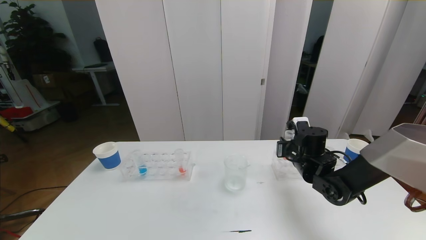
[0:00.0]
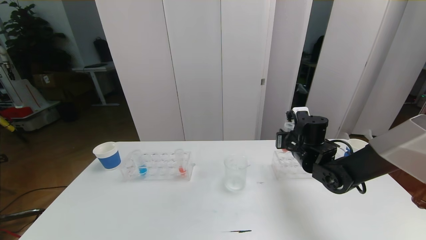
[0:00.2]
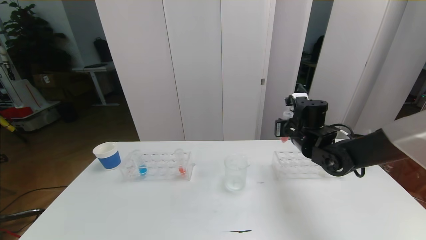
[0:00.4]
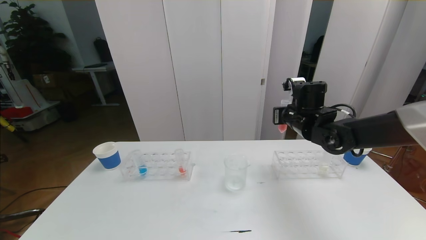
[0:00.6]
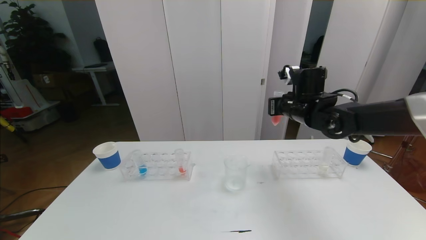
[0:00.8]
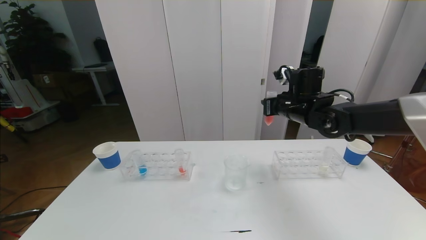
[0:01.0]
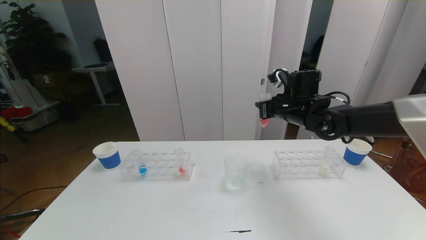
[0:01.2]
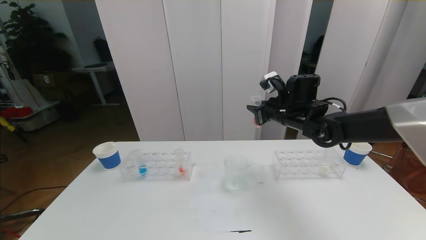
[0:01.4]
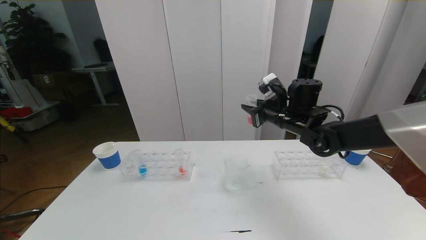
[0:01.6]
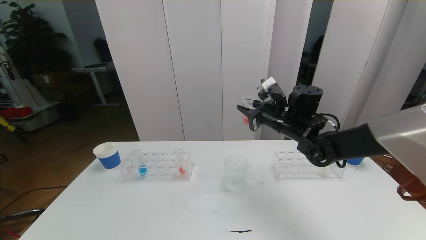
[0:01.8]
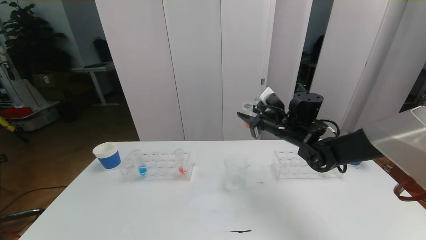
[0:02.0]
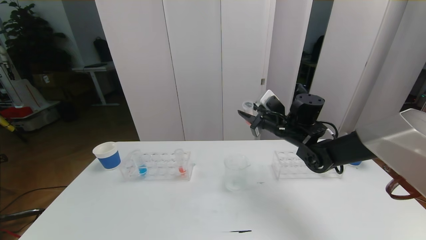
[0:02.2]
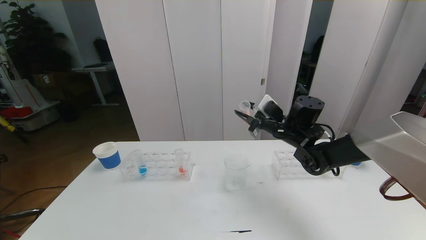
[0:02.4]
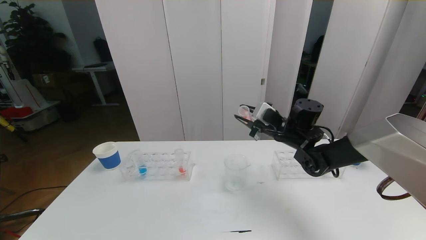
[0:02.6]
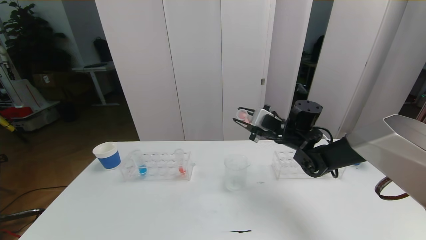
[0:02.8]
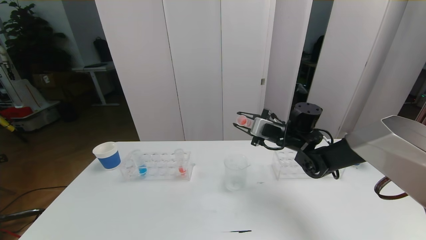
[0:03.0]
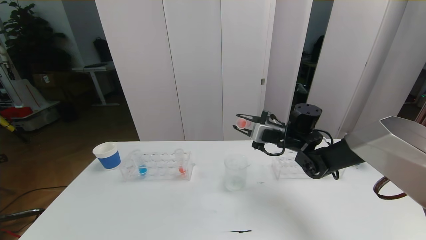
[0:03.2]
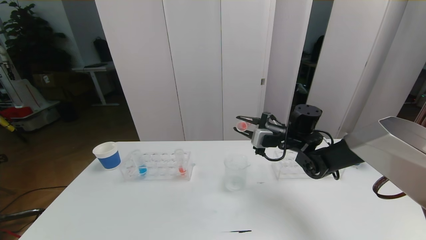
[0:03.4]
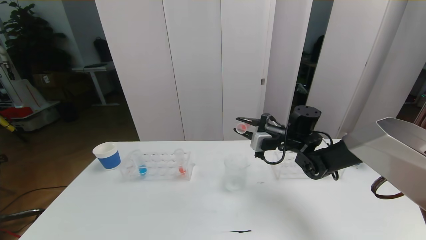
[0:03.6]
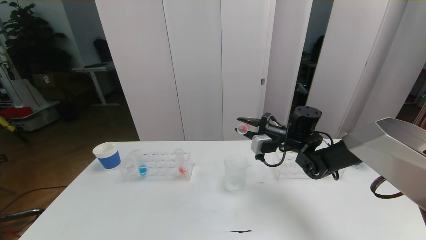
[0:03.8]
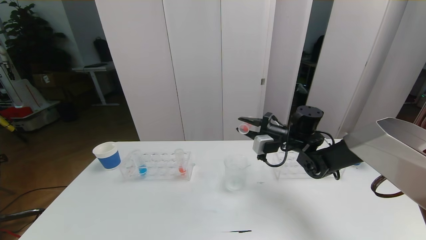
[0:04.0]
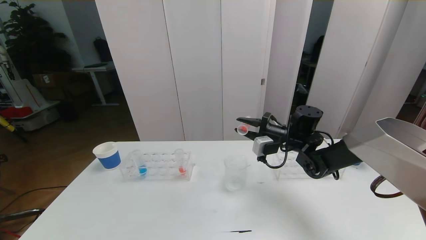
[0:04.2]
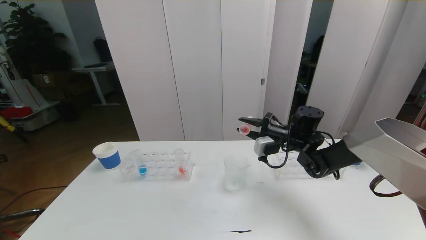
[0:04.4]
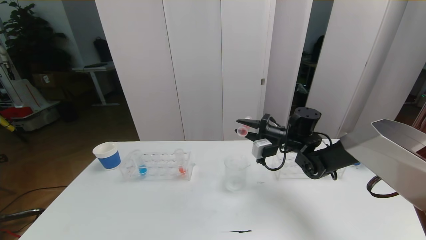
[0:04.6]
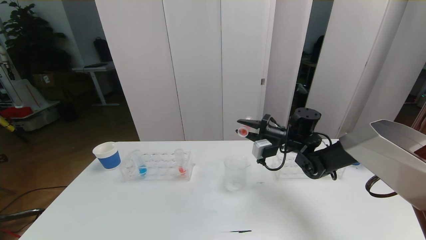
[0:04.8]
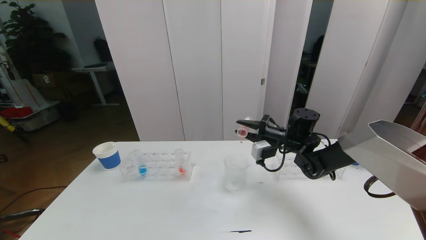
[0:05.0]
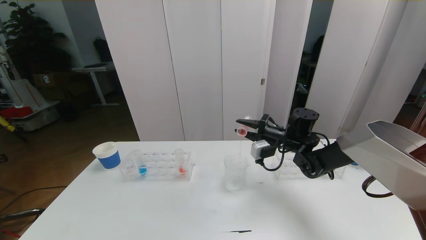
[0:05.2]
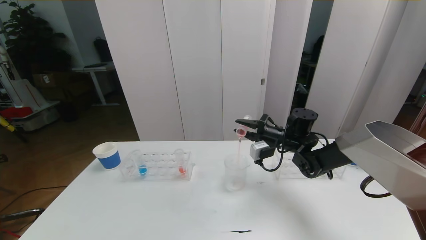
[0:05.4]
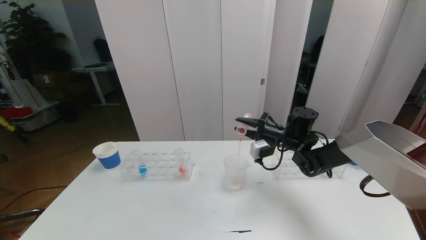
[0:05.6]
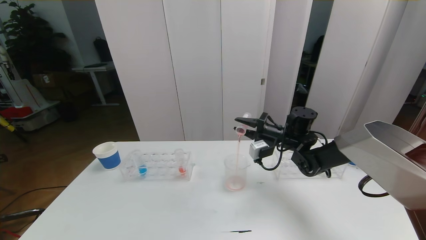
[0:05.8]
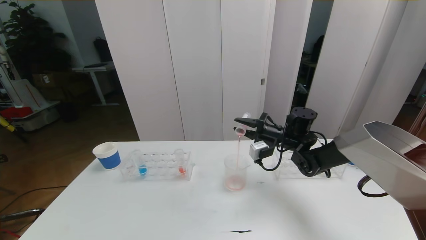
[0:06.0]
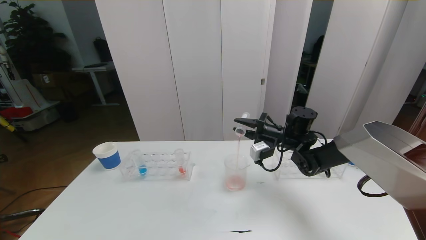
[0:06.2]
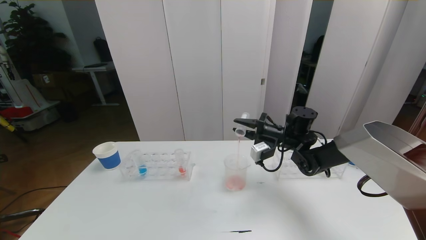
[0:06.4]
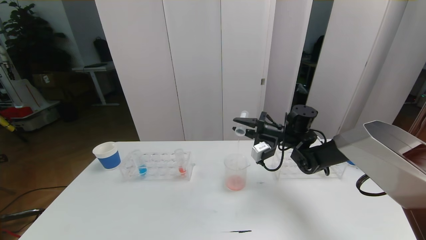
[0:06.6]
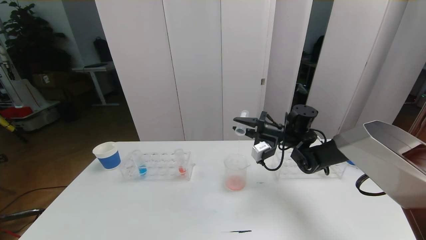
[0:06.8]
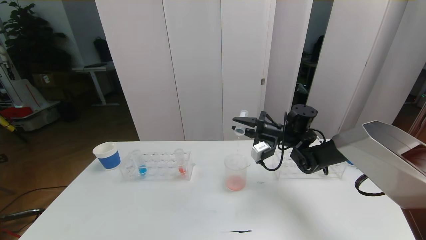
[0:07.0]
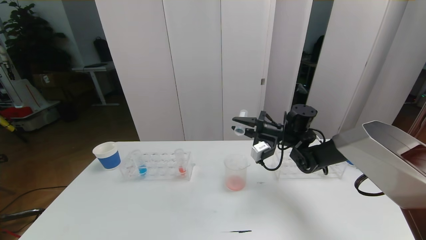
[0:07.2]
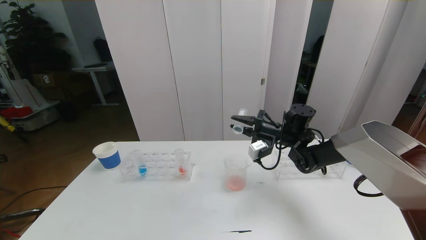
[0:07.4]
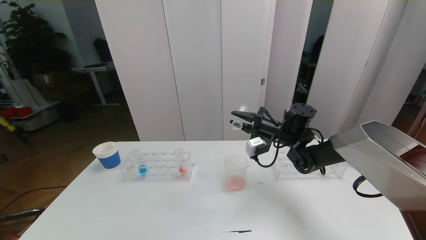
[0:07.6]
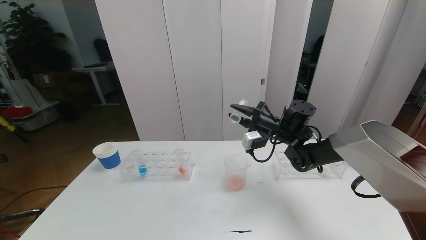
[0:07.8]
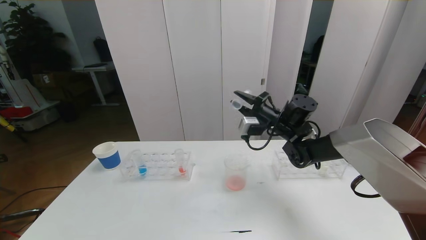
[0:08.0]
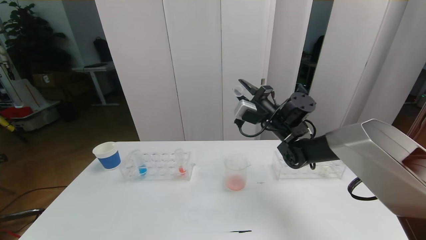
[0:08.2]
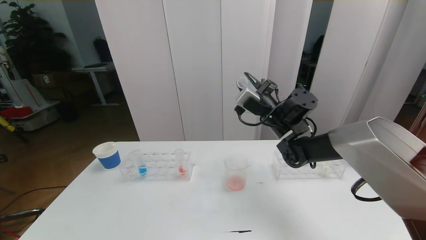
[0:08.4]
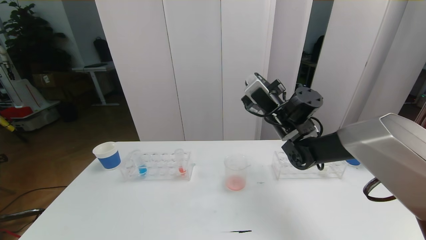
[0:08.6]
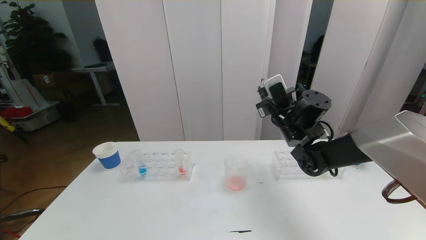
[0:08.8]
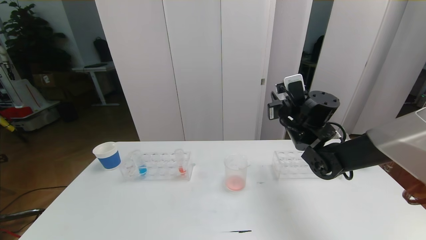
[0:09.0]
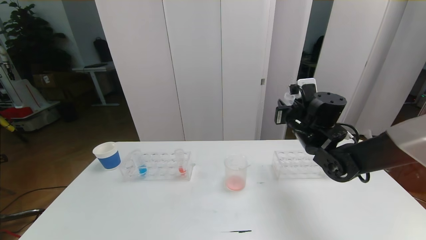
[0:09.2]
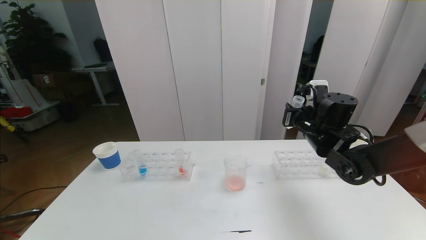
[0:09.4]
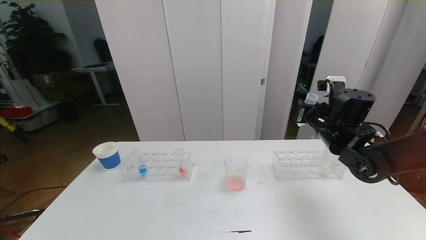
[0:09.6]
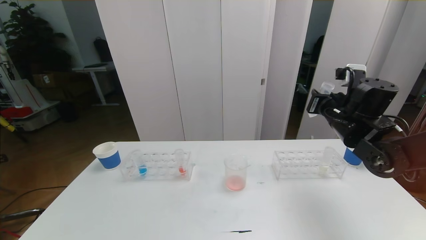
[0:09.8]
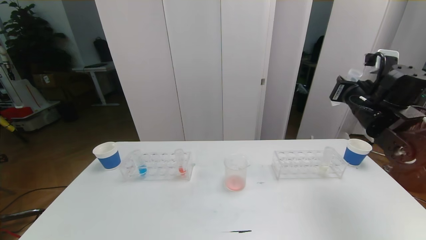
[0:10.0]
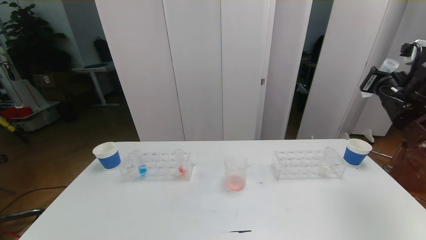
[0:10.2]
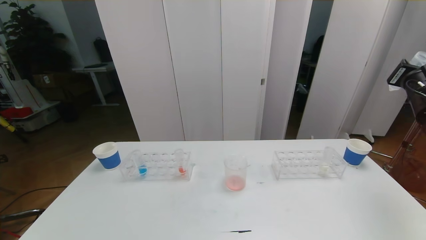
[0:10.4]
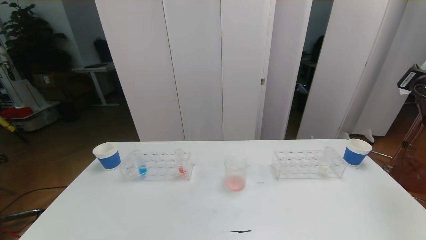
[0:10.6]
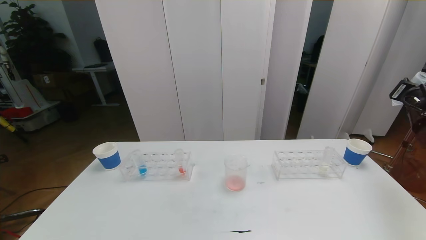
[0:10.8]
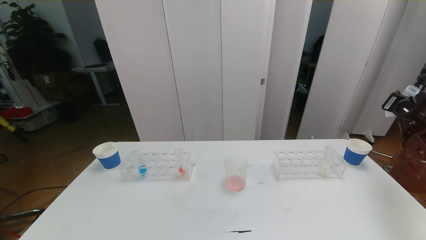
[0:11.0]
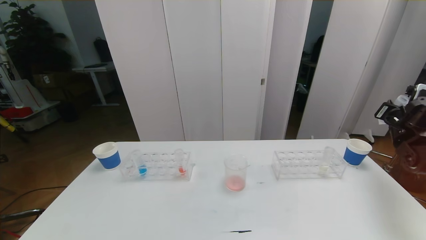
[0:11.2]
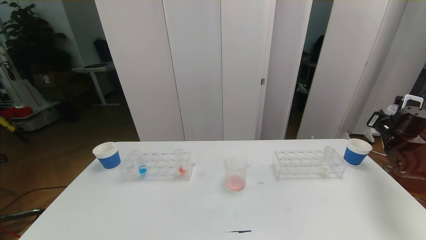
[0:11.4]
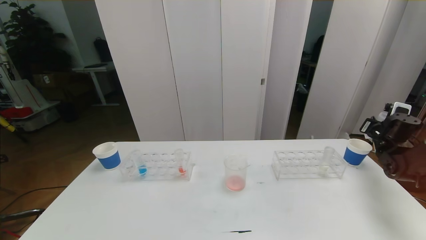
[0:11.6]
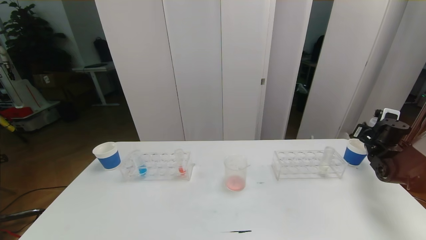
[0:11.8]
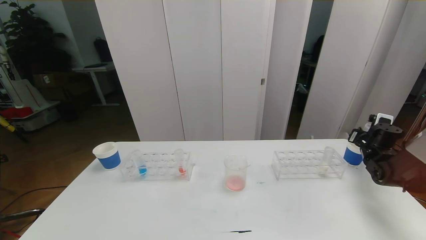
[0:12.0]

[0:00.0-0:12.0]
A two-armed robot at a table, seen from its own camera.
Task of the whole recording: pick up the test tube with red pigment the test tube with blue pigment and the test tube with white pigment by grippers and pour them into the beaker.
0:00.0 to 0:01.6: The right gripper goes some 10 cm upward.
0:01.6 to 0:03.0: The right gripper goes about 5 cm downward.
0:04.4 to 0:07.6: The grippers stay close to where they were, moving slightly.
0:07.6 to 0:09.0: The right gripper travels upward by some 5 cm.
0:09.0 to 0:10.4: The right gripper travels to the right by some 25 cm.
0:10.4 to 0:12.0: The right gripper heads downward and forward, covering about 25 cm.

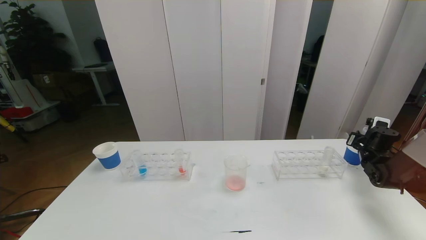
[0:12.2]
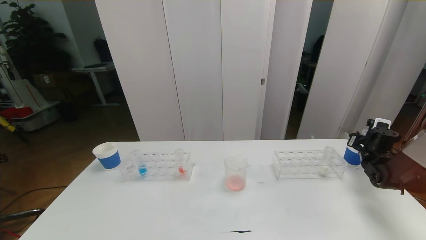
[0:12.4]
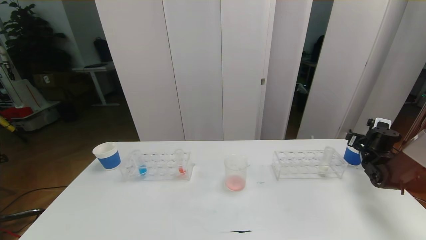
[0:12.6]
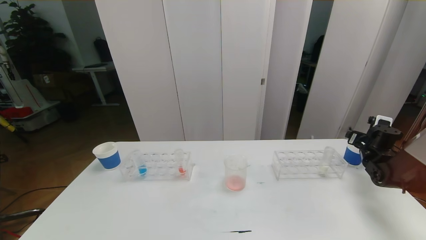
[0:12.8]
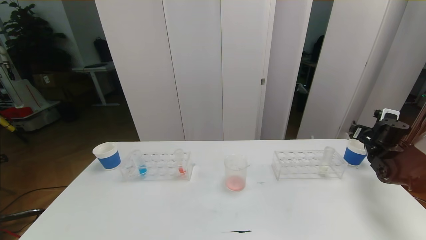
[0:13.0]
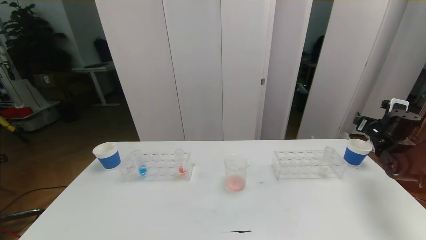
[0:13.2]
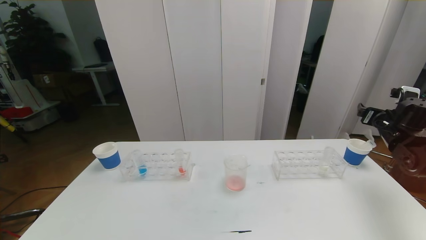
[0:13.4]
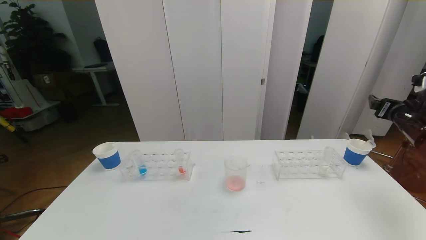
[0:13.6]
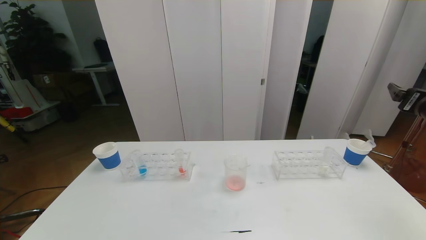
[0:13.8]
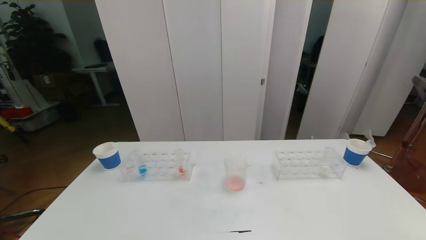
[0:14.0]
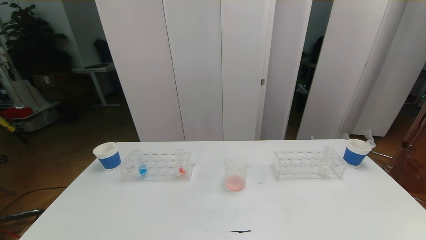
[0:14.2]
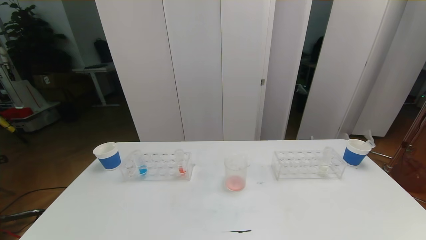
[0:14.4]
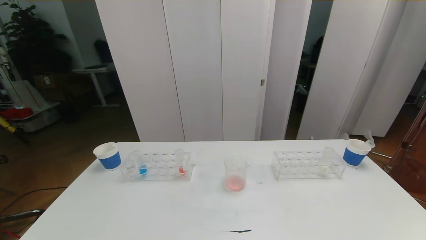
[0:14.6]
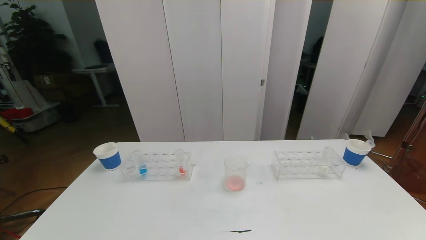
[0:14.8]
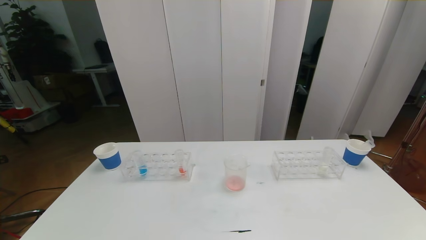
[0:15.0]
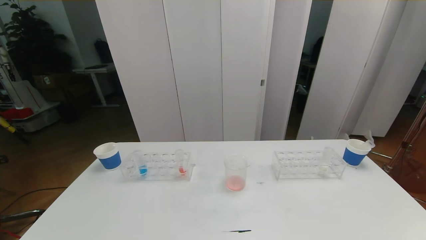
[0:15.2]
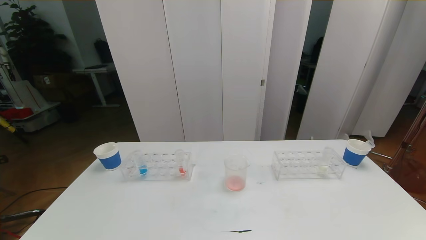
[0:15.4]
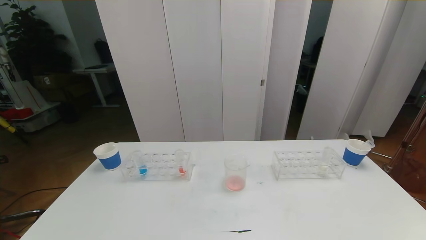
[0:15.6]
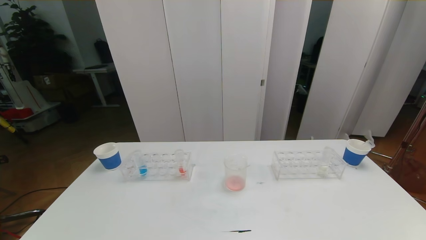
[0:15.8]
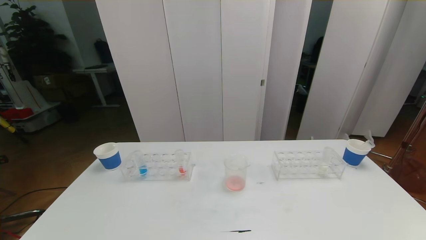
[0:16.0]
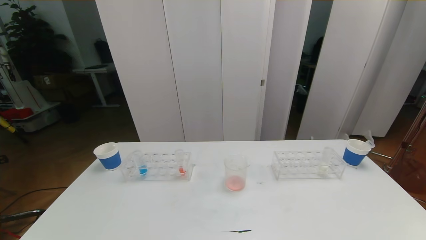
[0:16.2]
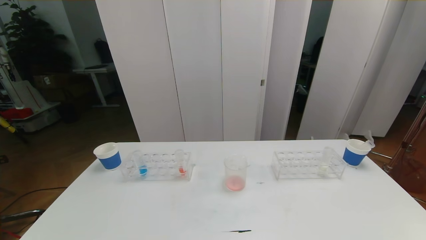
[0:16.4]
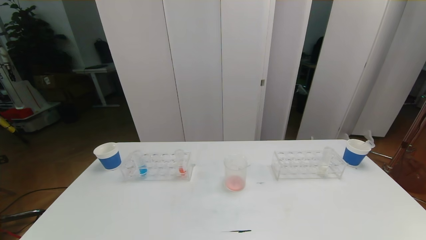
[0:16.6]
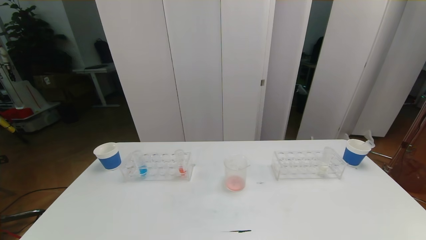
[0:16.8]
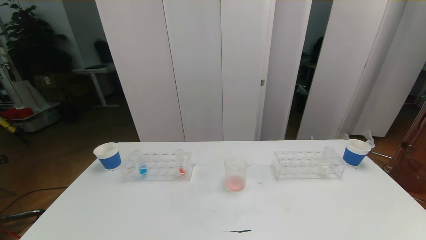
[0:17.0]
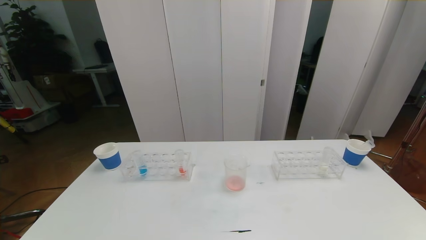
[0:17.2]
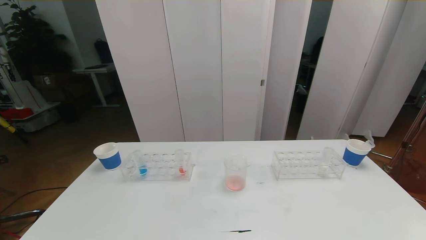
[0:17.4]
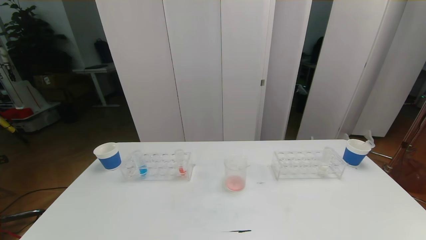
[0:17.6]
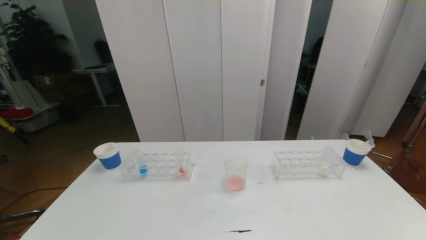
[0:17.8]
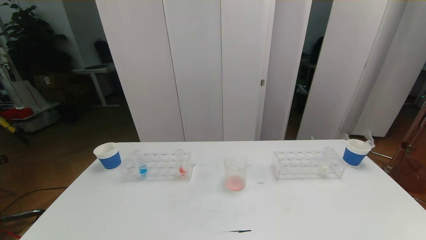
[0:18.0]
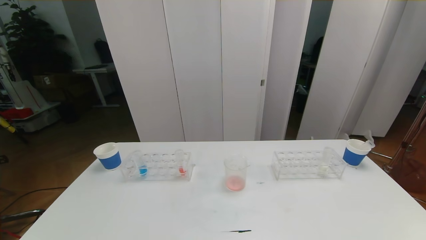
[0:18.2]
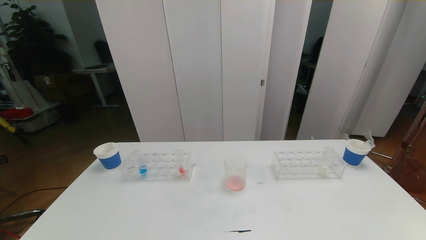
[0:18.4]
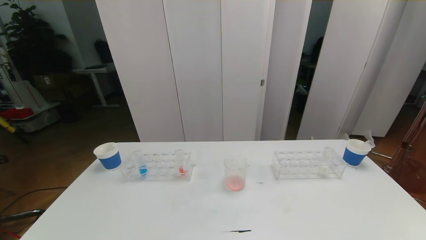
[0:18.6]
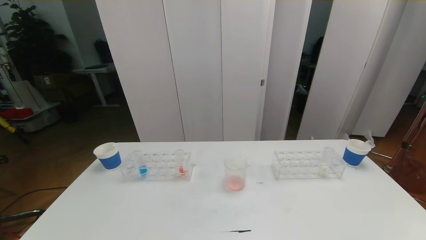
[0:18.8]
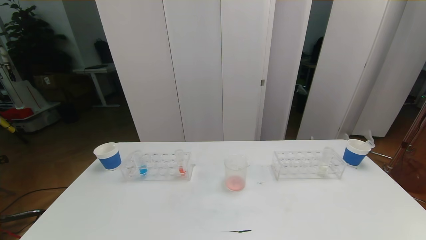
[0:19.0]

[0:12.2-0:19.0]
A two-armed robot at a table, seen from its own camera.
Task of the whole recording: pick up the test tube with red pigment the test tube with blue pigment and the test tube with white pigment by grippers and pour them into the beaker.
0:12.2 to 0:13.6: The right gripper travels upward and backward by approximately 20 cm, and opens its fingers.
0:13.6 to 0:15.0: The right gripper goes about 35 cm backward.
0:16.2 to 0:17.6: Both grippers stay put.
